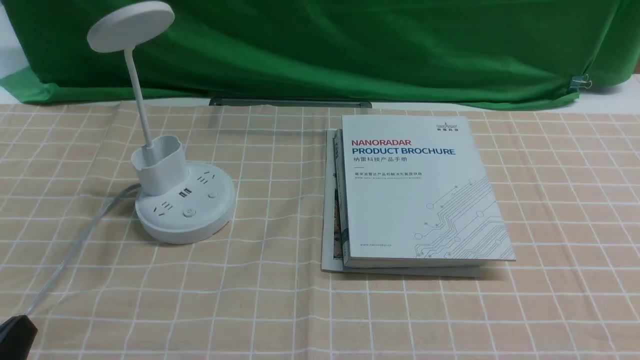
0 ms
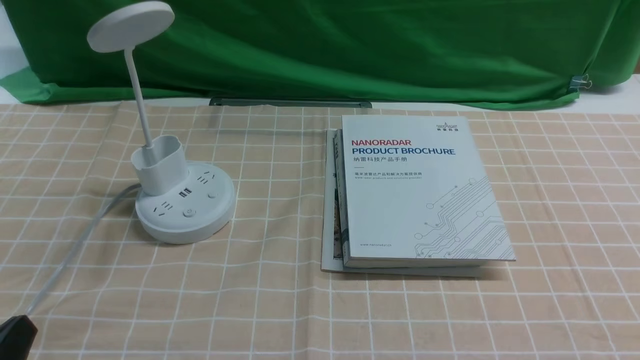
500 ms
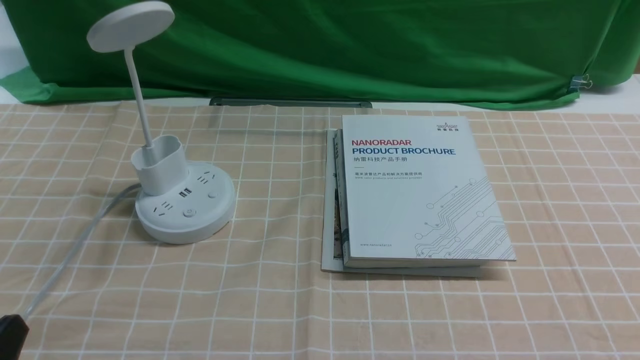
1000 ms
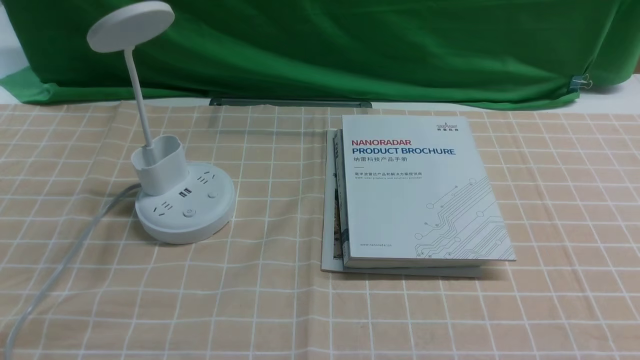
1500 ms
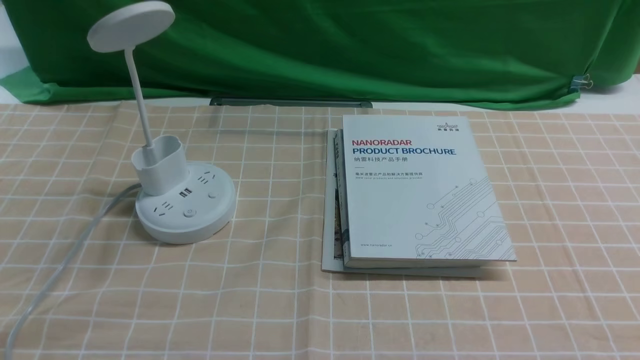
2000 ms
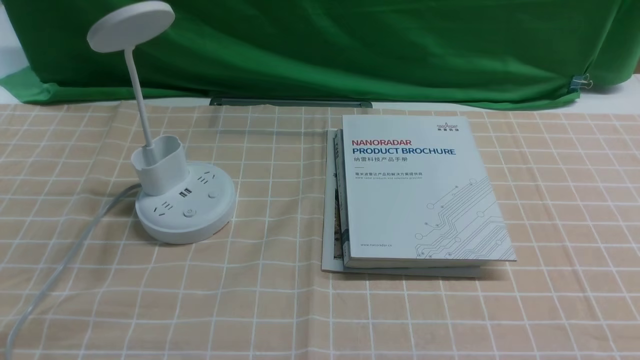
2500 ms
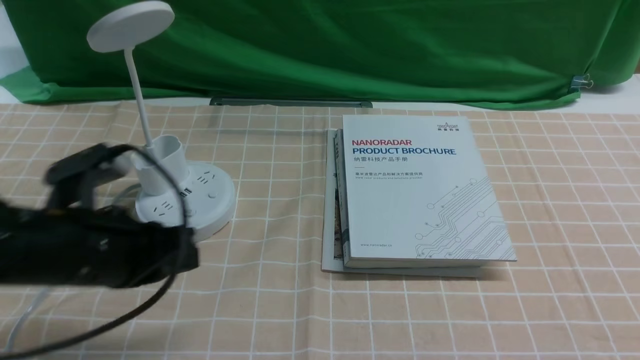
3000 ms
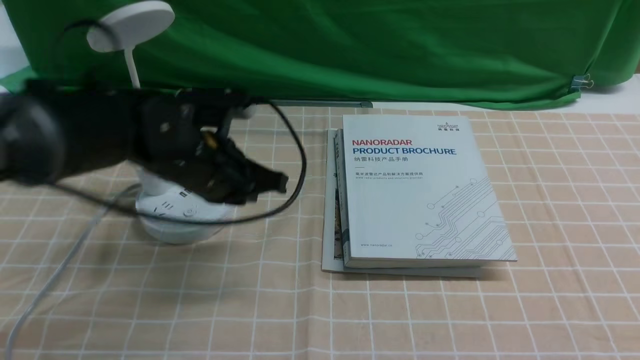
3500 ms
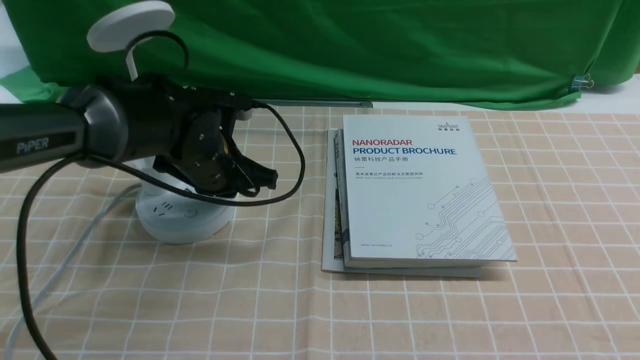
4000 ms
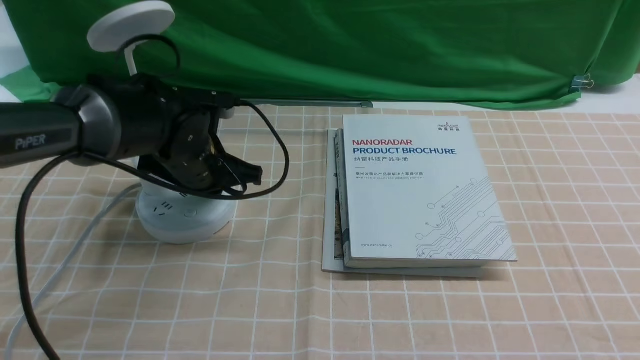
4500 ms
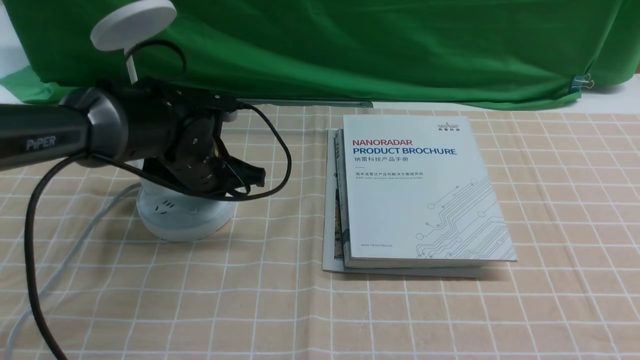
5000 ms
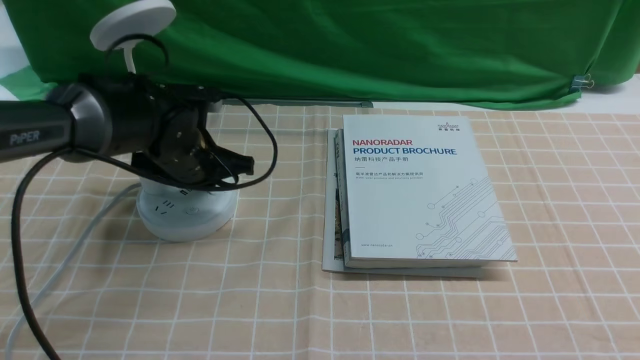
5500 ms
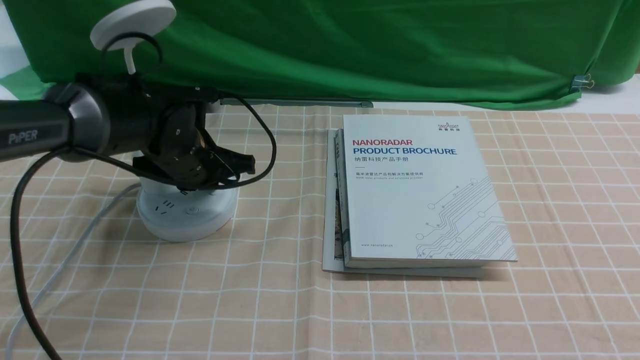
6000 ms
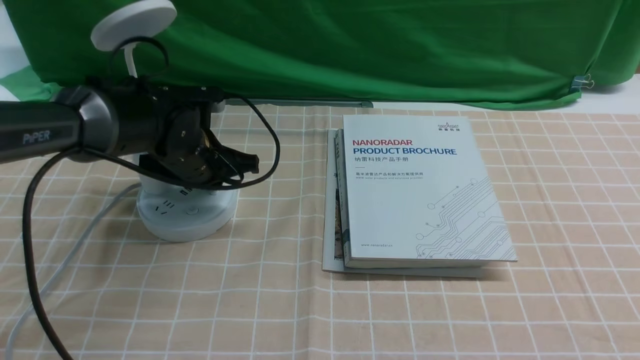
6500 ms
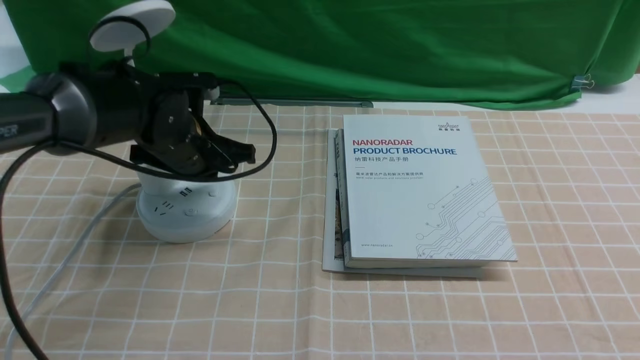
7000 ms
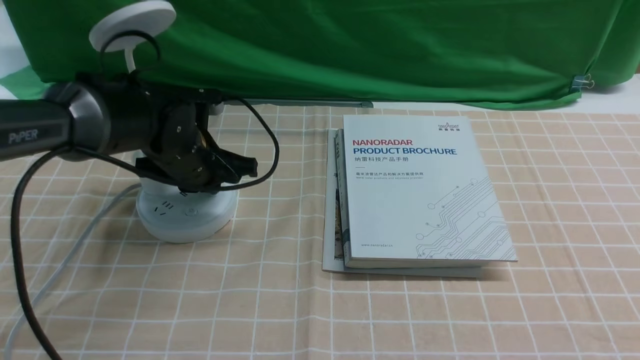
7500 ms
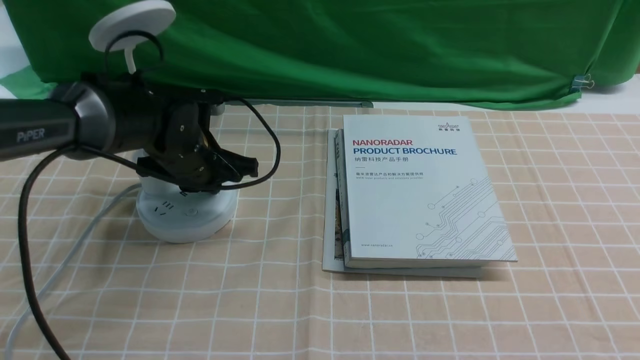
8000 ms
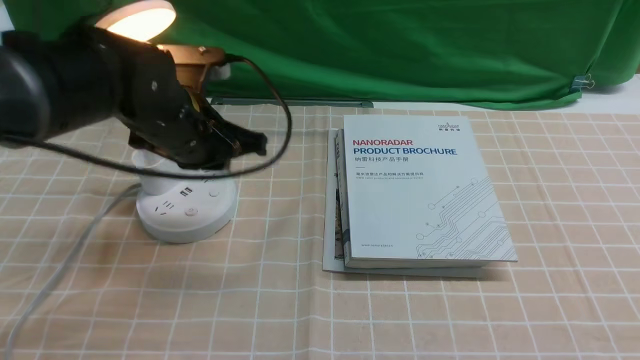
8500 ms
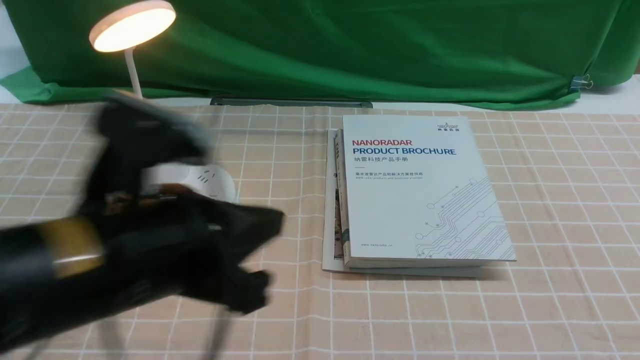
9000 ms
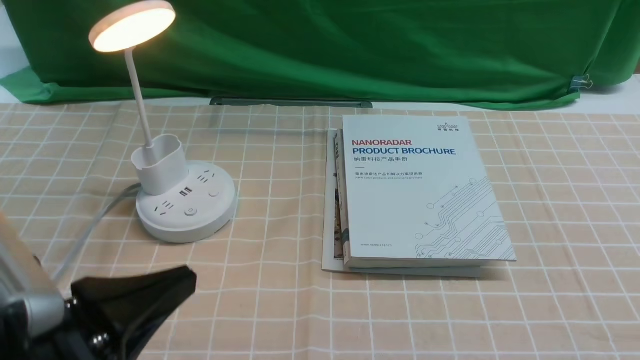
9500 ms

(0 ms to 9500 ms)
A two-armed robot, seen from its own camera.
Step, 0 ms - 8500 ms: use the left arm to press the button switch on the lamp holder.
2000 ms - 4000 ms: The left gripper shifts roughly 35 cm forward and to the right, and closes.
4000 ms - 5500 ms: The grippers move only a little.
5500 ms - 7500 ms: Neither gripper changes place.
7500 ms - 9500 ms: The left gripper shifts about 30 cm backward.

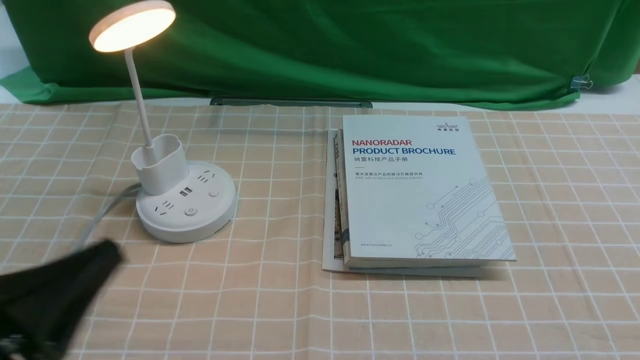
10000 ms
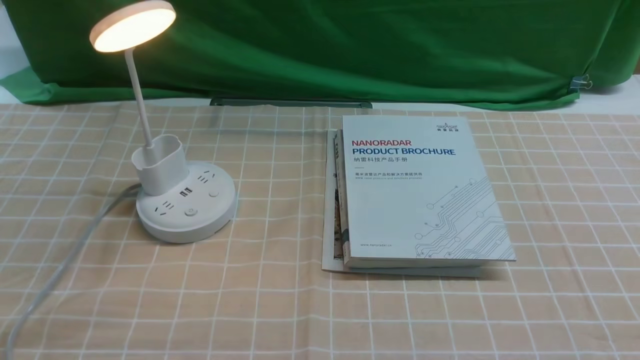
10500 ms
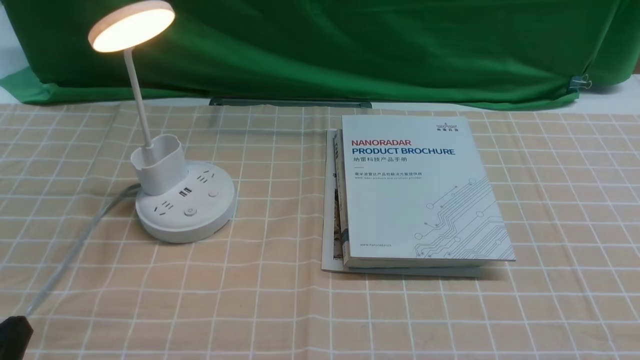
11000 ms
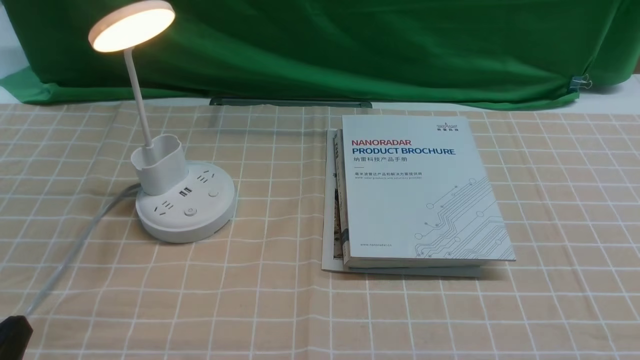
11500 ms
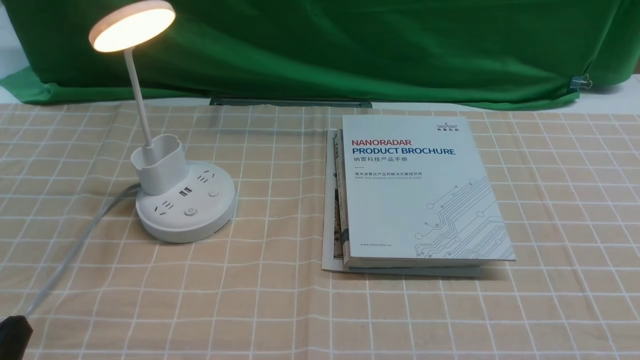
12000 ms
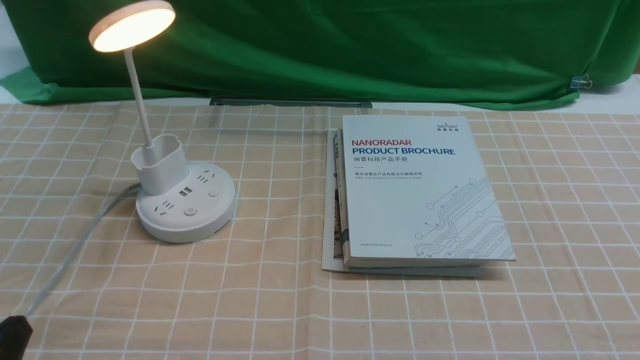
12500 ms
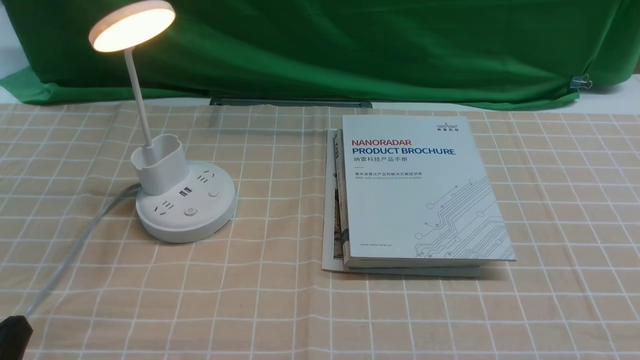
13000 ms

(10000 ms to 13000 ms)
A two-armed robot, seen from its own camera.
10000 ms - 11500 ms: The left gripper heads downward, covering some 5 cm.
11500 ms - 13000 ms: The two grippers keep their place.

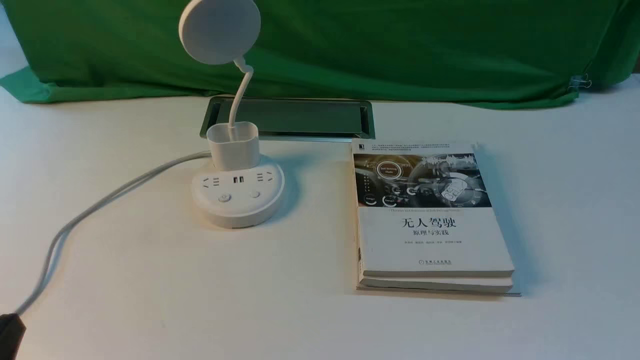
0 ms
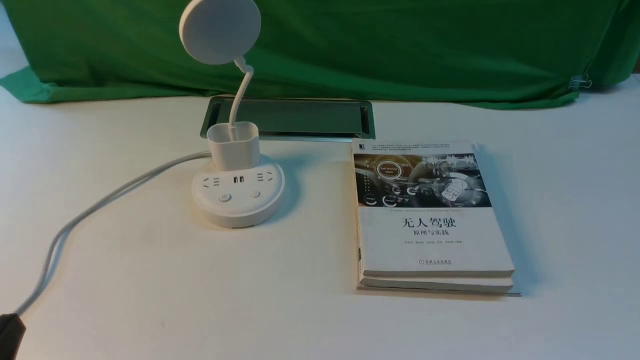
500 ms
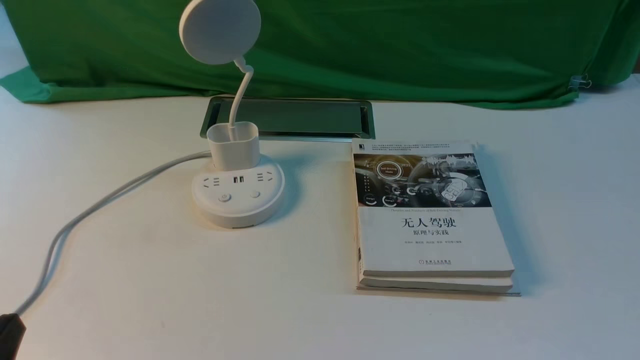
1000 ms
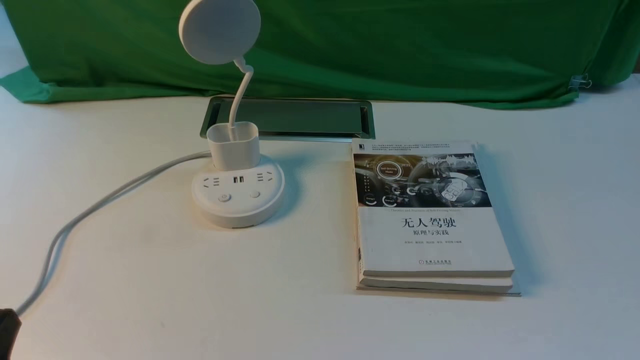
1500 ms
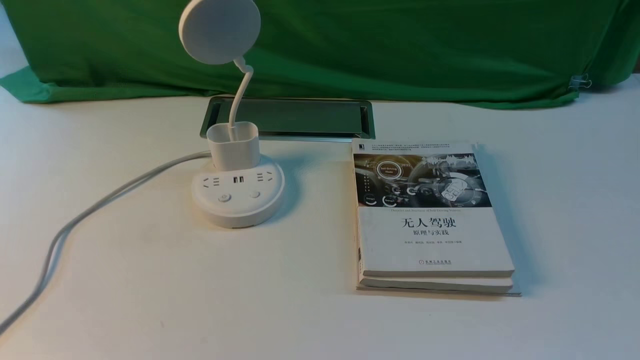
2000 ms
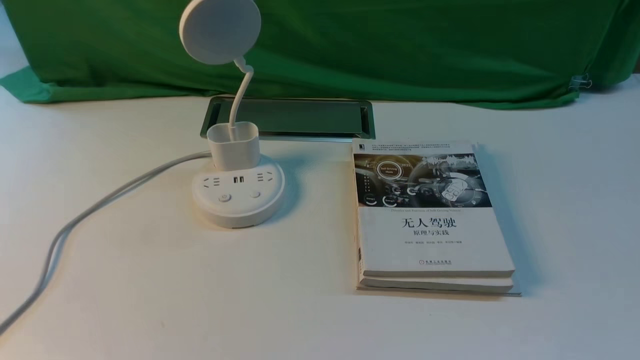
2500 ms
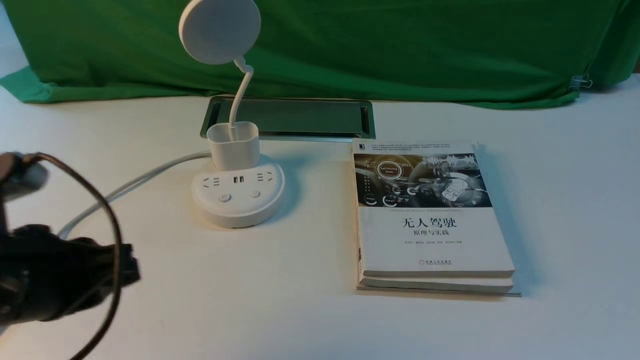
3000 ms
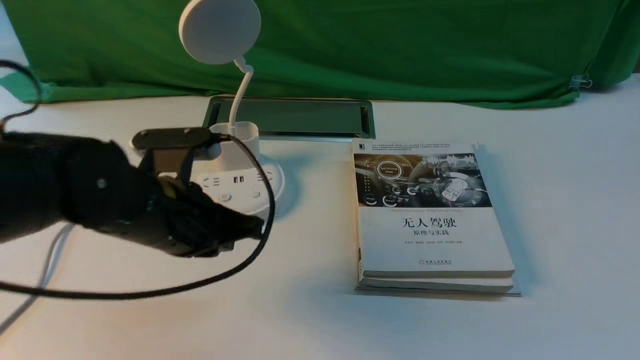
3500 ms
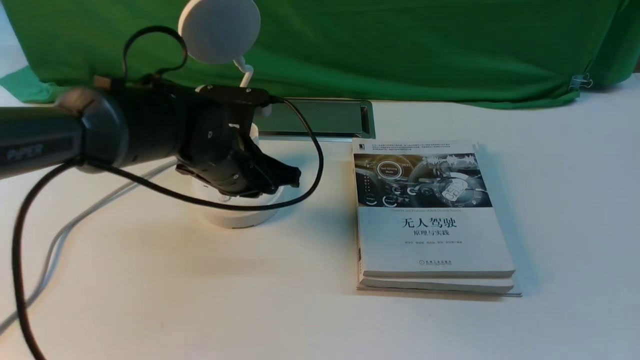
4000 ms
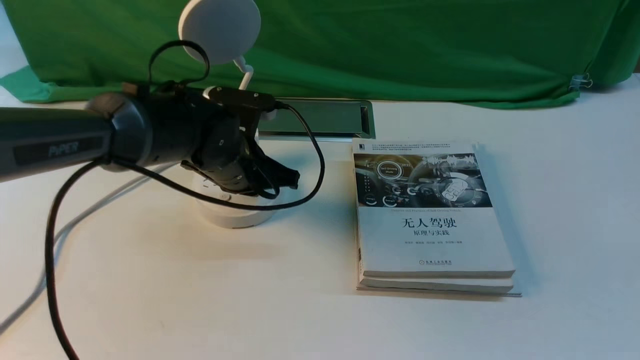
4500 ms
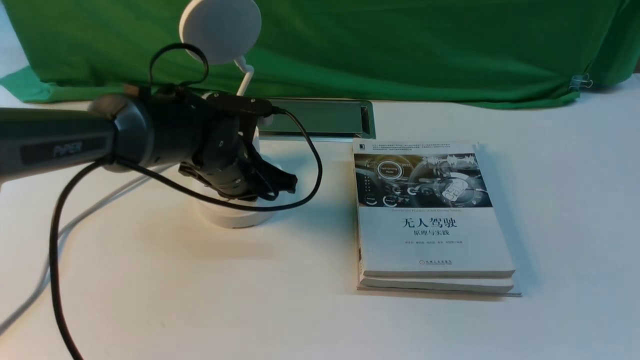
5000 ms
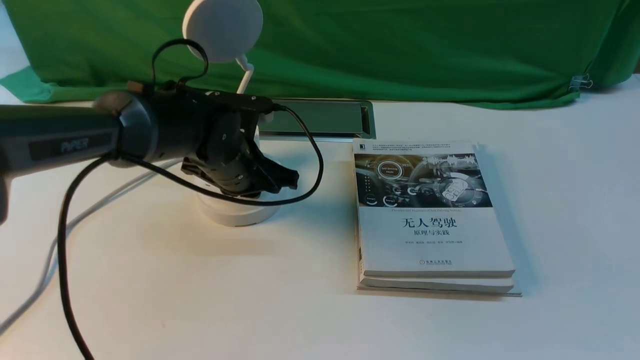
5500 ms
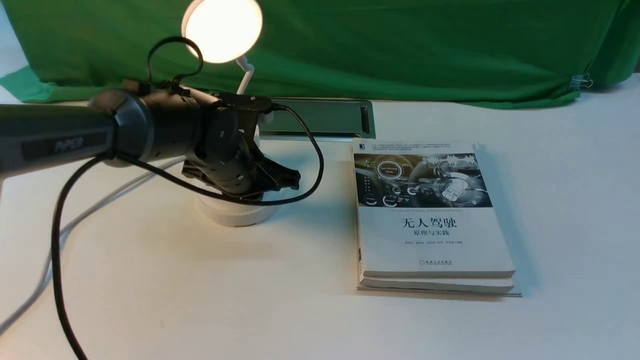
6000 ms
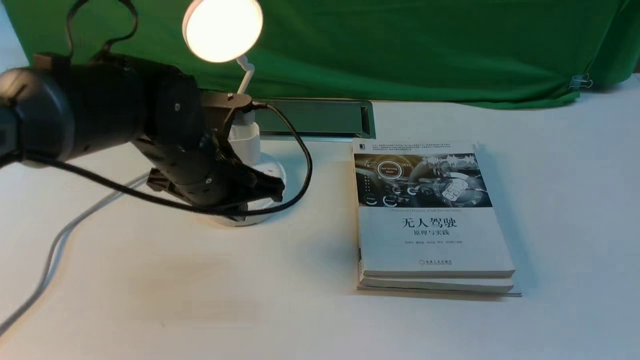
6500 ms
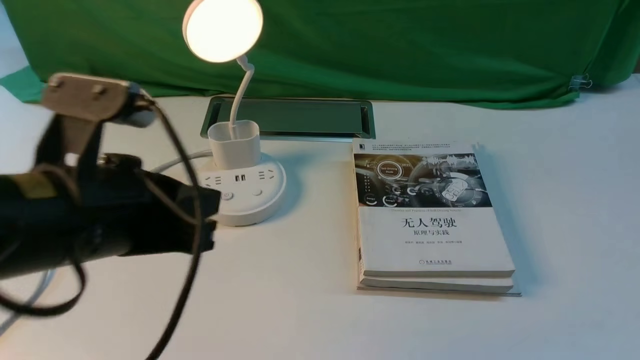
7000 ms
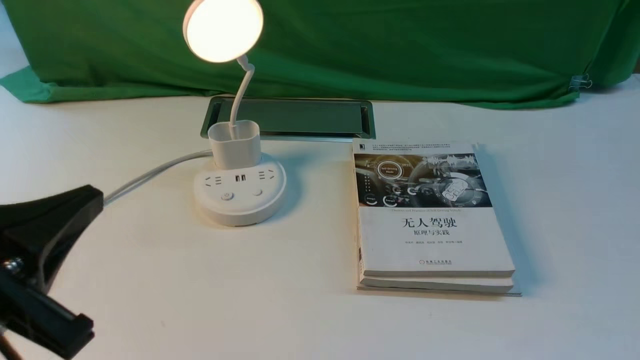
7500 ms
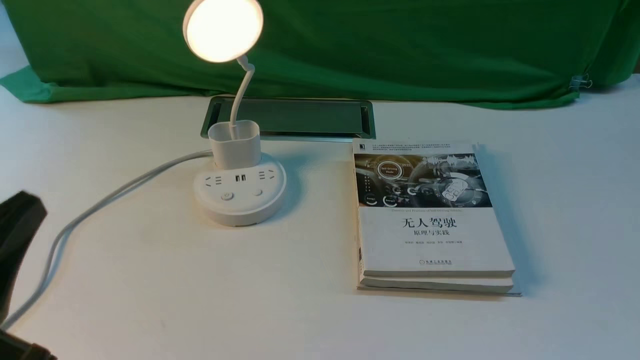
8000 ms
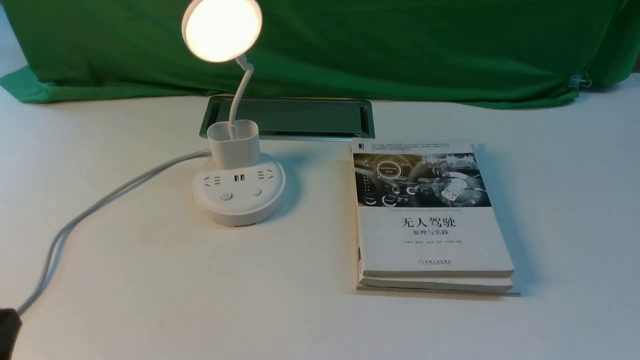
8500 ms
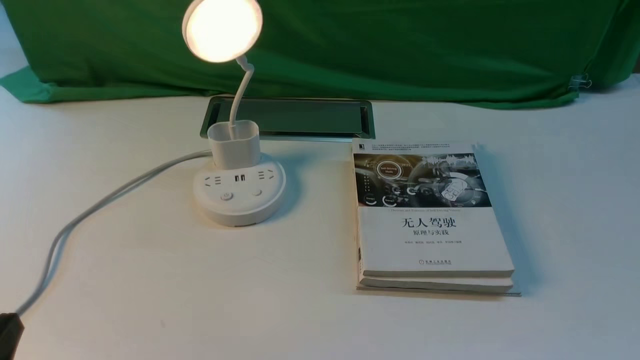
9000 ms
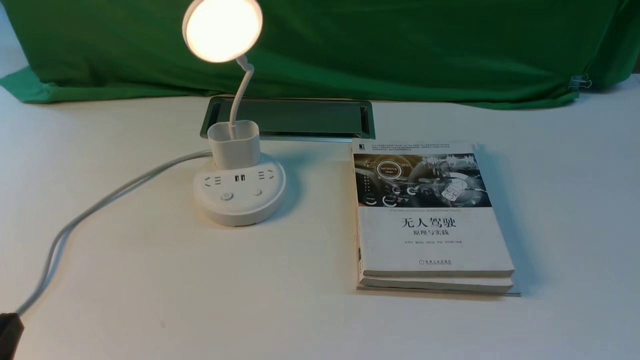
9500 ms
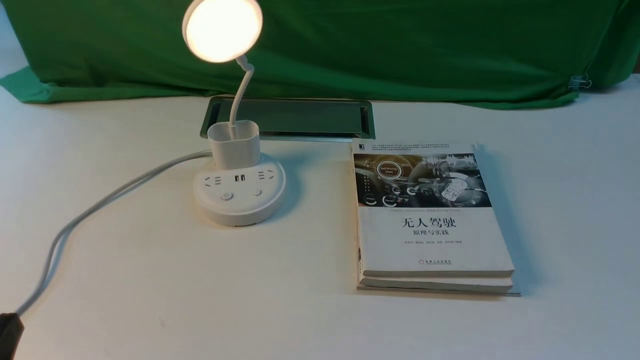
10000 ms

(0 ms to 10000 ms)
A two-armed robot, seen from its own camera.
Step, 0 ms - 6500 ms: use the left arm to press the button switch on the lamp holder.
2000 ms - 4000 ms: The left gripper heads forward and to the right, covering some 35 cm, and closes.
4000 ms - 6000 ms: The left gripper opens.
6000 ms - 8000 ms: The left gripper heads backward and to the left, covering about 35 cm.
8000 ms - 10000 ms: The left gripper shifts some 10 cm downward.
